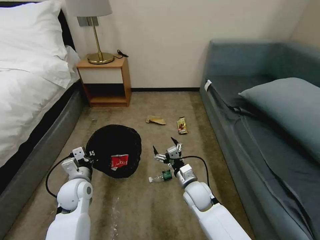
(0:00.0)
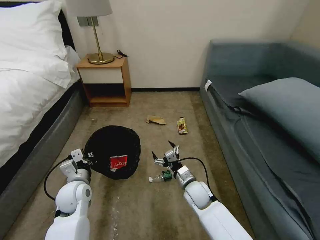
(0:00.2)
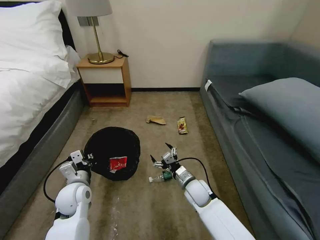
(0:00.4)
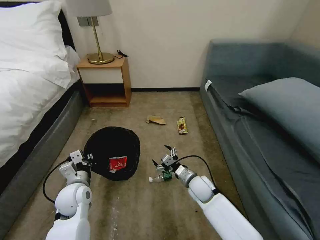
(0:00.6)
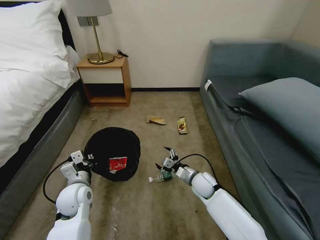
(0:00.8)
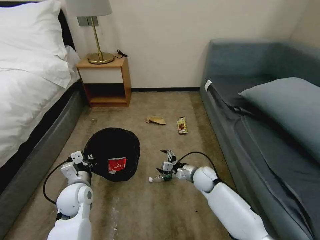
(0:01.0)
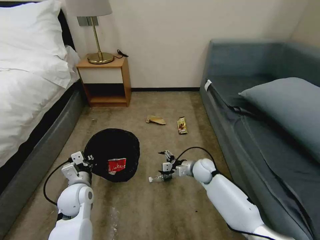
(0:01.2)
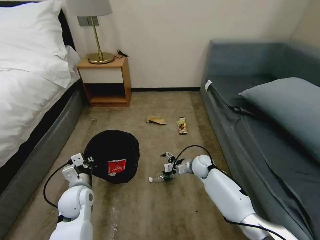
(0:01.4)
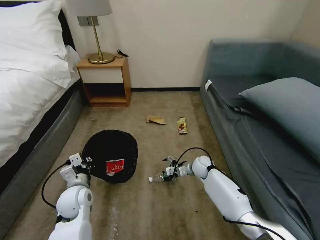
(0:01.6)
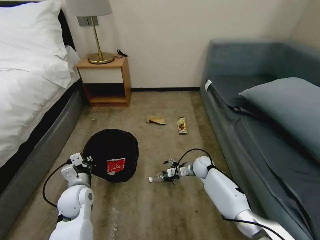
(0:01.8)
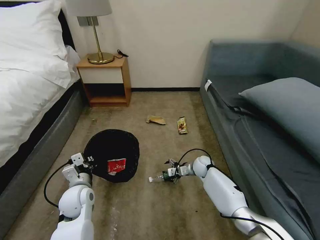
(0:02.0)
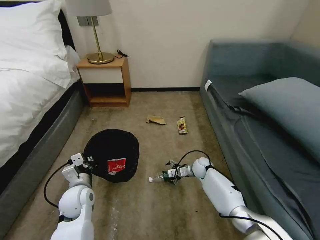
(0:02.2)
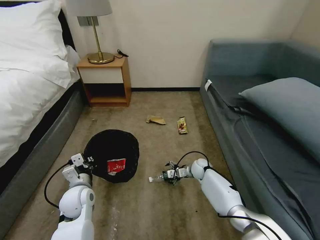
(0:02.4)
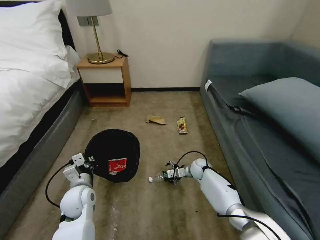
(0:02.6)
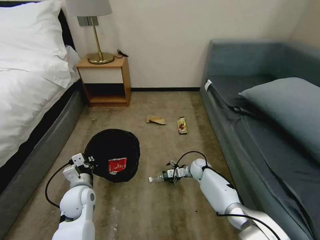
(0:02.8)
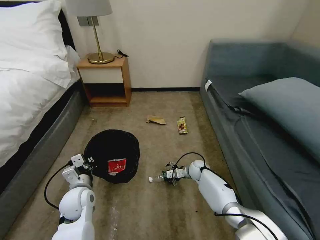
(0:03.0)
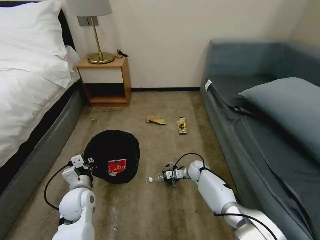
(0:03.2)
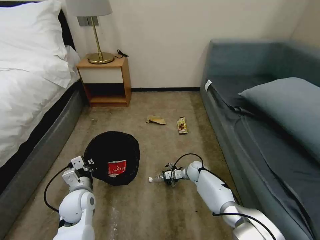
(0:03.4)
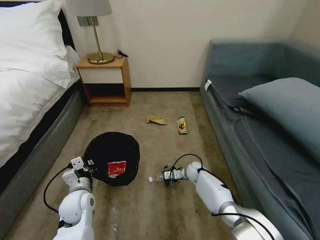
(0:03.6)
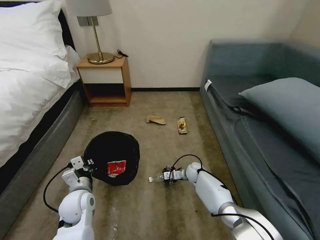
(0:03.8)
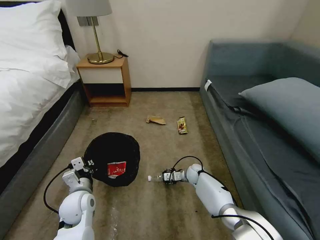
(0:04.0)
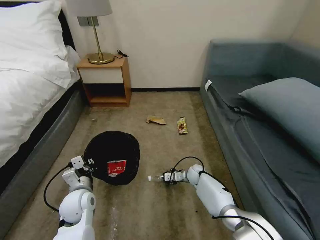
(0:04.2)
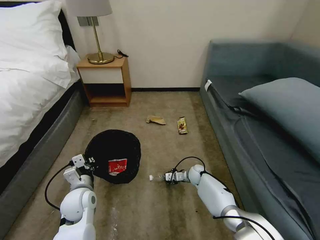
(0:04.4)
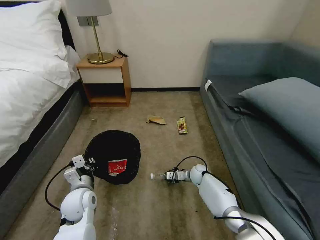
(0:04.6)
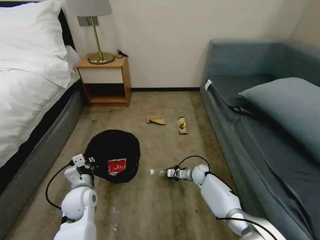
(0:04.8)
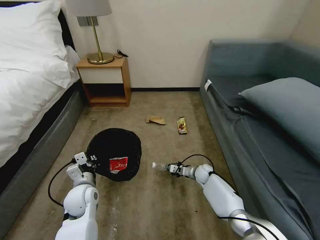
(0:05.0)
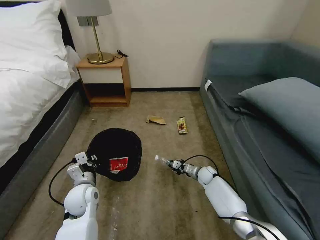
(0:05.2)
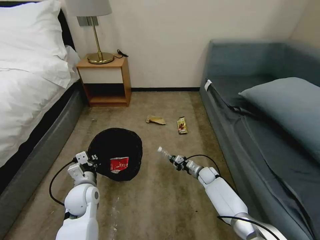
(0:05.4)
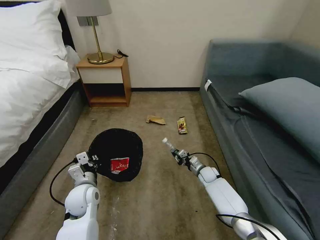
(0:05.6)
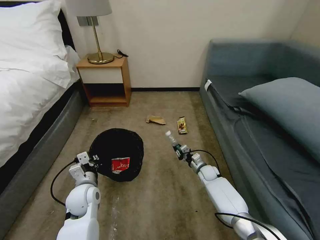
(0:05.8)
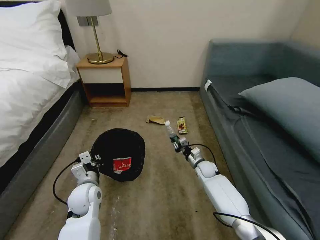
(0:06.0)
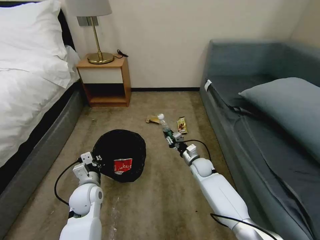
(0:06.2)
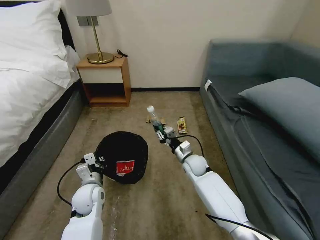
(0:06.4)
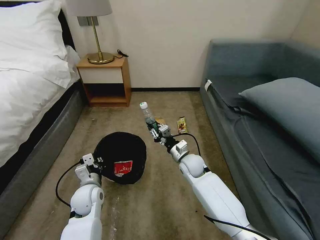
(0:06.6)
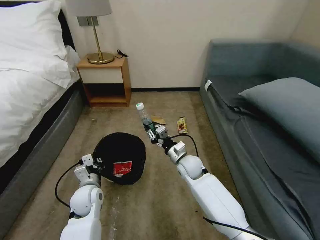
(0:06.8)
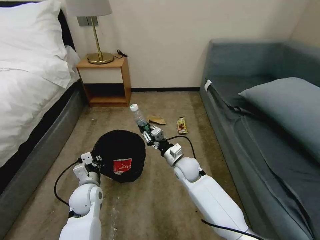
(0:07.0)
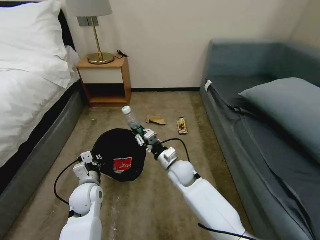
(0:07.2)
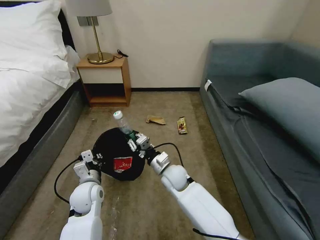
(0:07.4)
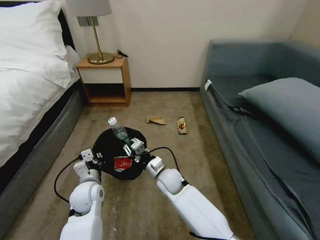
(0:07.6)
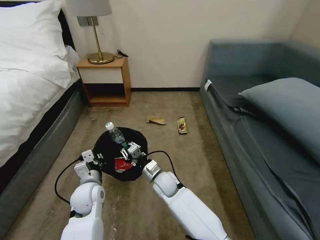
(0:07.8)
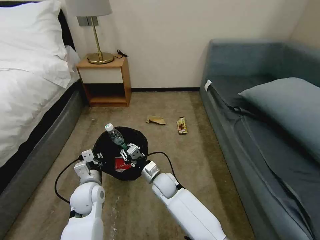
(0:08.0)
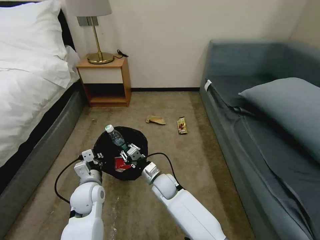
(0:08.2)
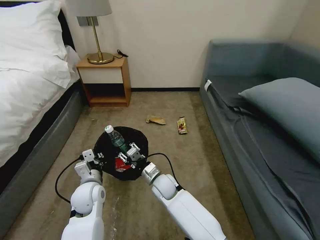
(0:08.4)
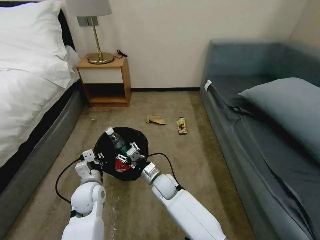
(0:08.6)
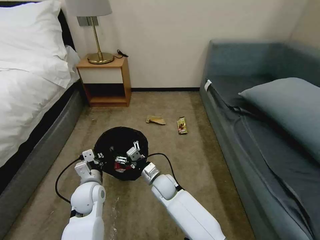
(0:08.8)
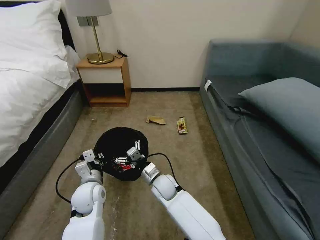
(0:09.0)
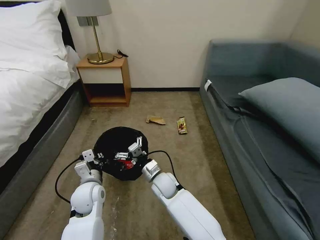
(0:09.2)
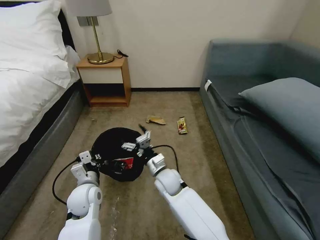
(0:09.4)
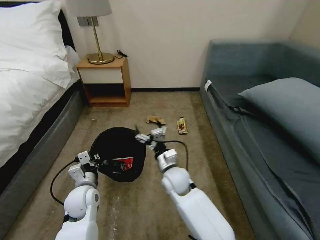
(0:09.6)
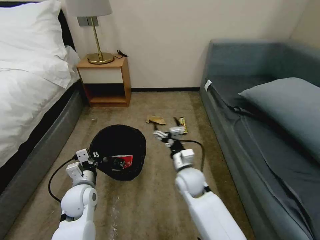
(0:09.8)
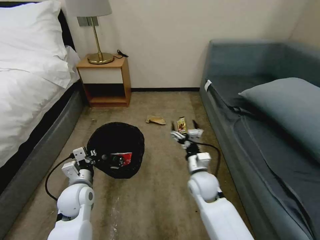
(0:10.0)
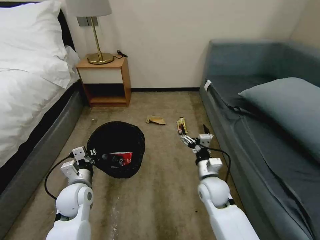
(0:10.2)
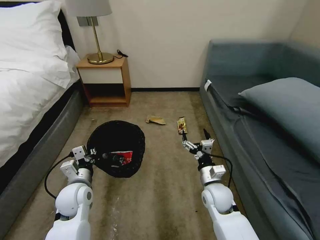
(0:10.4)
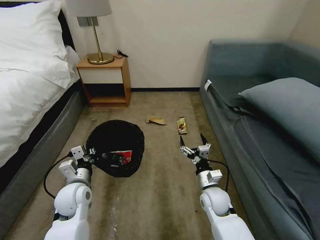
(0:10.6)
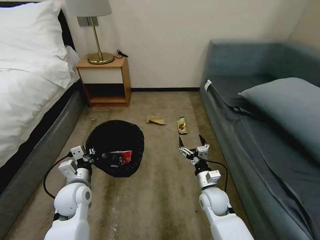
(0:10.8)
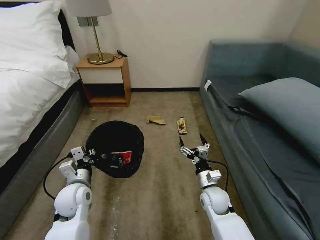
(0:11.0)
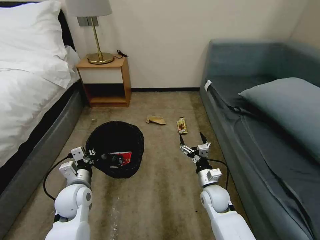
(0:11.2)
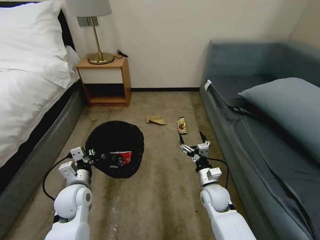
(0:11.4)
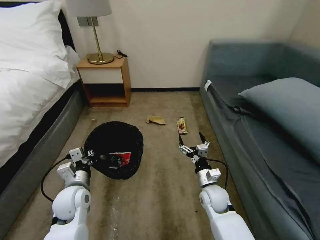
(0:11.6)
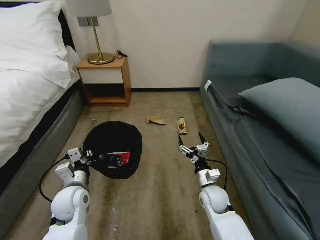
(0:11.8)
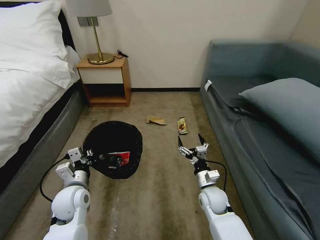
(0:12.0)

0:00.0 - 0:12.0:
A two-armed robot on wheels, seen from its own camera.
Task of the whole recording: Pick up the trash bin, then pick up the garbage on the floor and place it into the trash bin.
0:00.0 - 0:01.6: The right gripper is displaced forward and to the right by some 15 cm.
0:01.6 - 0:03.0: The right gripper travels downward by about 5 cm.
0:03.0 - 0:04.4: The right gripper closes its fingers.
0:04.4 - 0:06.0: The right gripper shifts by about 5 cm.
0:06.0 - 0:07.6: The right gripper moves to the left, backward and upward, about 25 cm.
0:07.6 - 0:09.0: The right gripper opens its fingers.
0:09.0 - 0:10.4: The right gripper heads to the right, covering about 20 cm.
0:10.4 - 0:12.0: The grippers move only a little.

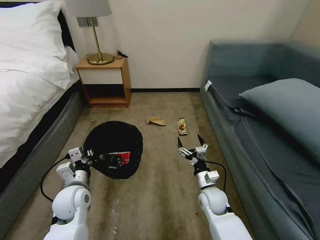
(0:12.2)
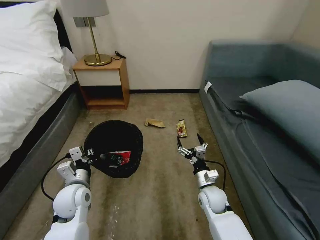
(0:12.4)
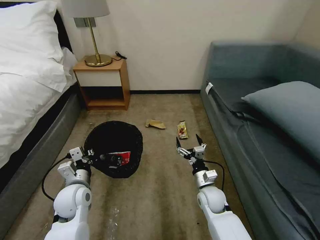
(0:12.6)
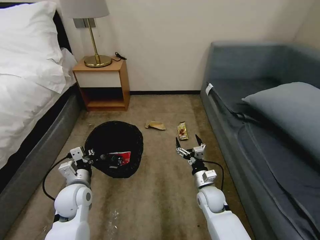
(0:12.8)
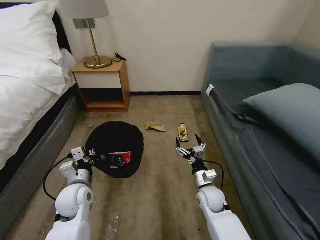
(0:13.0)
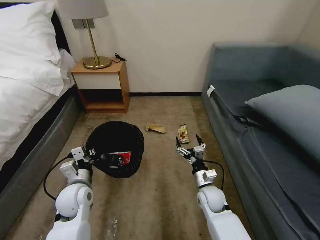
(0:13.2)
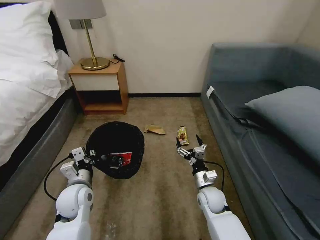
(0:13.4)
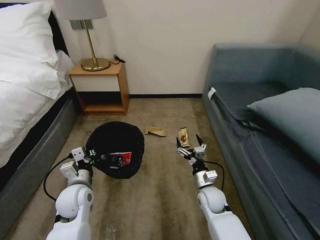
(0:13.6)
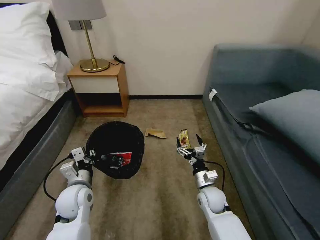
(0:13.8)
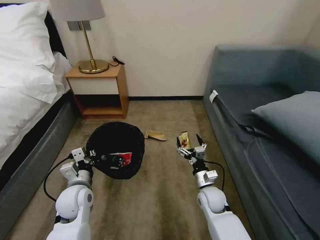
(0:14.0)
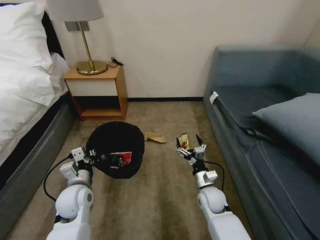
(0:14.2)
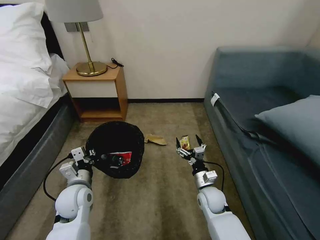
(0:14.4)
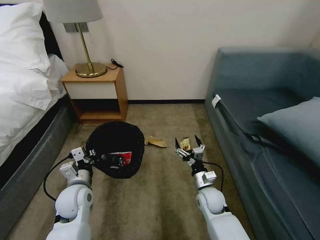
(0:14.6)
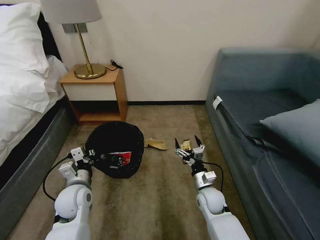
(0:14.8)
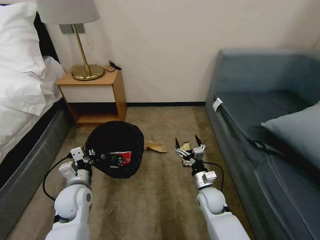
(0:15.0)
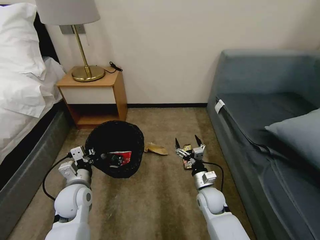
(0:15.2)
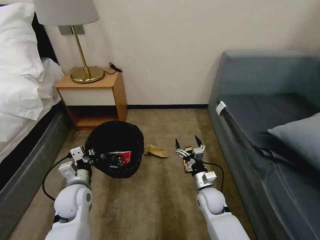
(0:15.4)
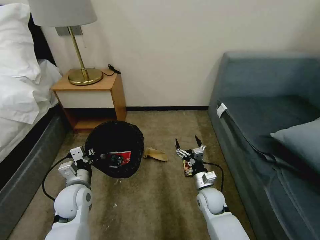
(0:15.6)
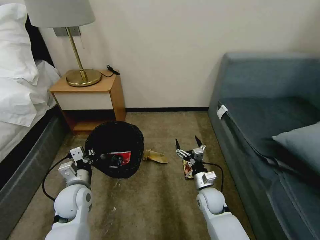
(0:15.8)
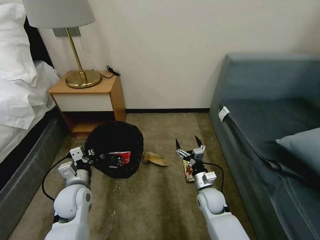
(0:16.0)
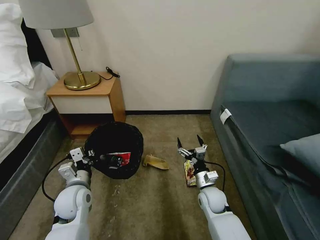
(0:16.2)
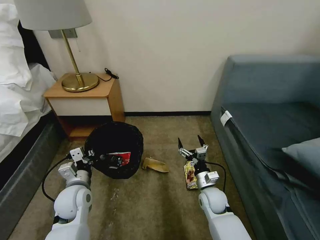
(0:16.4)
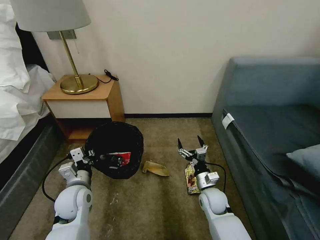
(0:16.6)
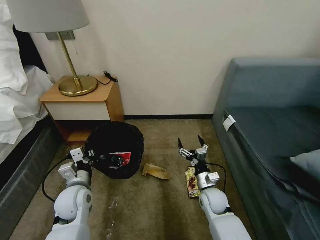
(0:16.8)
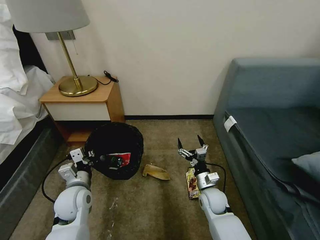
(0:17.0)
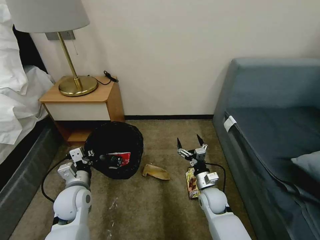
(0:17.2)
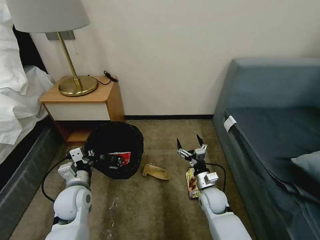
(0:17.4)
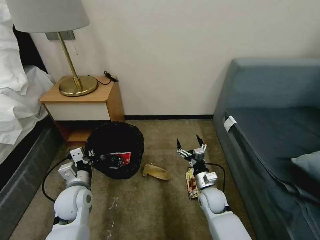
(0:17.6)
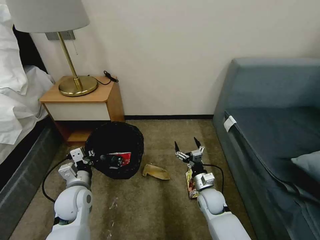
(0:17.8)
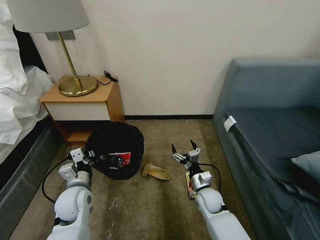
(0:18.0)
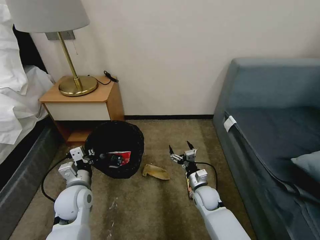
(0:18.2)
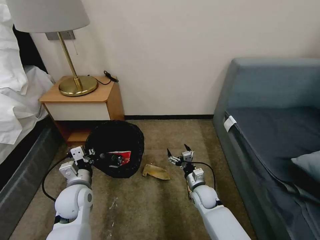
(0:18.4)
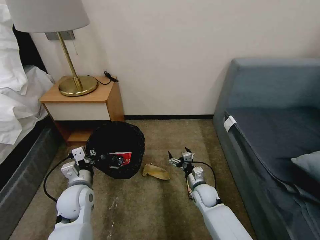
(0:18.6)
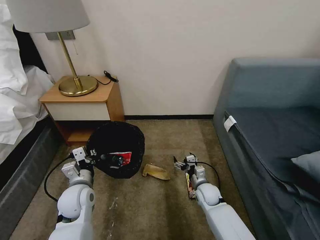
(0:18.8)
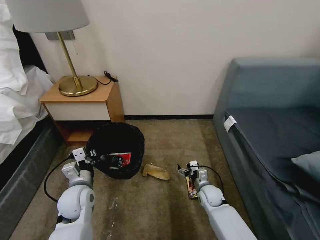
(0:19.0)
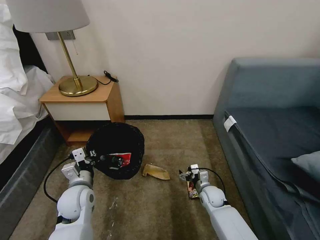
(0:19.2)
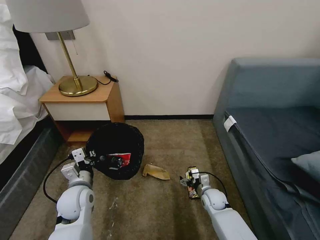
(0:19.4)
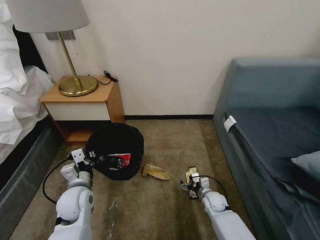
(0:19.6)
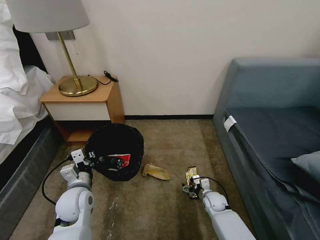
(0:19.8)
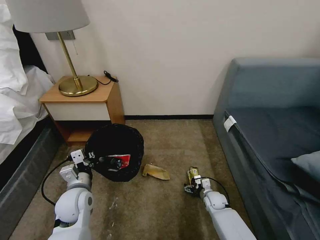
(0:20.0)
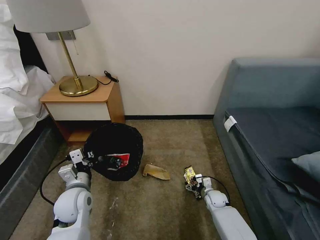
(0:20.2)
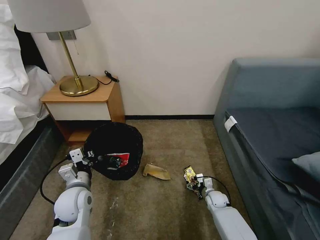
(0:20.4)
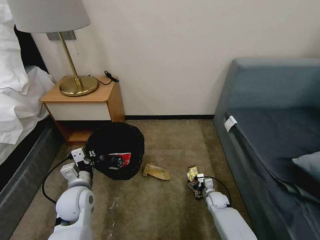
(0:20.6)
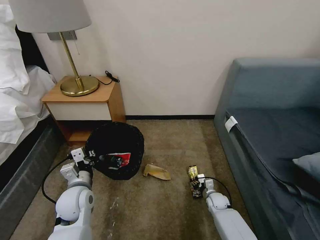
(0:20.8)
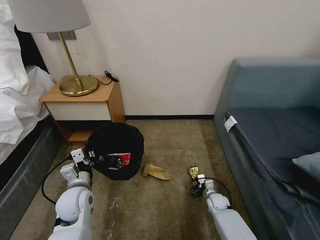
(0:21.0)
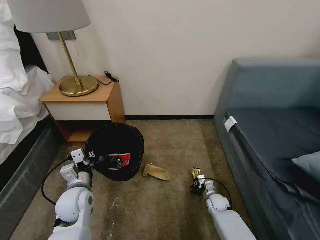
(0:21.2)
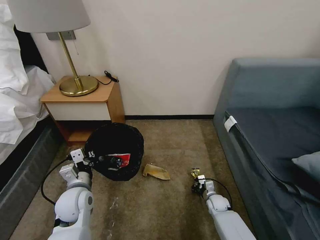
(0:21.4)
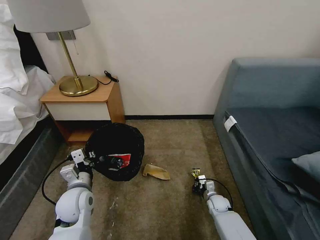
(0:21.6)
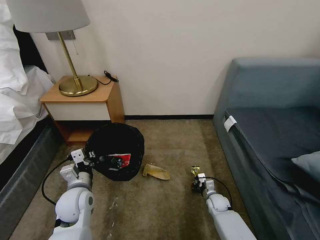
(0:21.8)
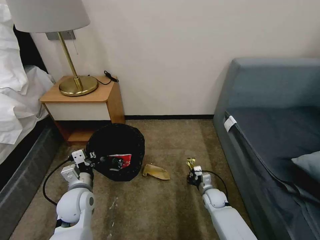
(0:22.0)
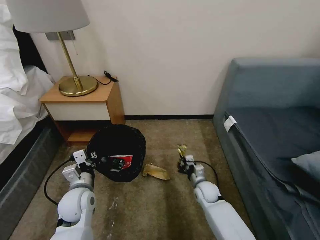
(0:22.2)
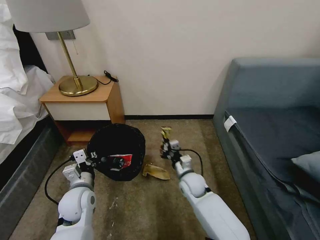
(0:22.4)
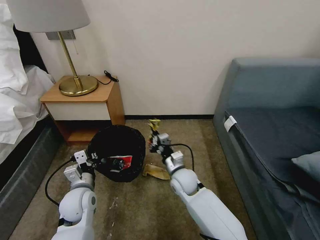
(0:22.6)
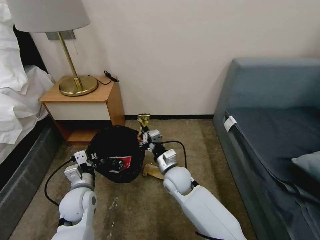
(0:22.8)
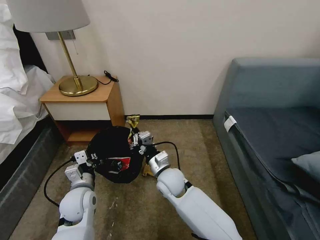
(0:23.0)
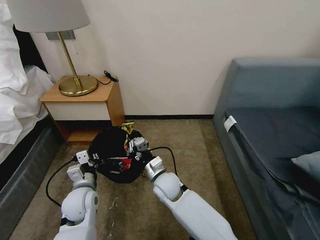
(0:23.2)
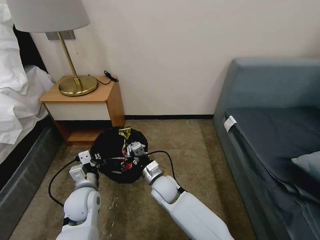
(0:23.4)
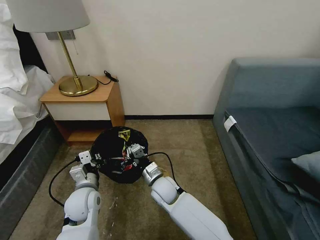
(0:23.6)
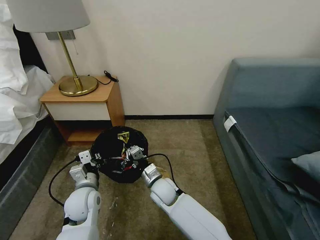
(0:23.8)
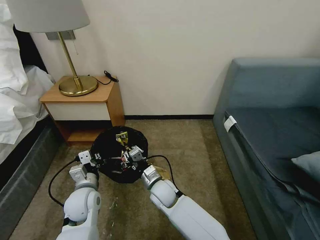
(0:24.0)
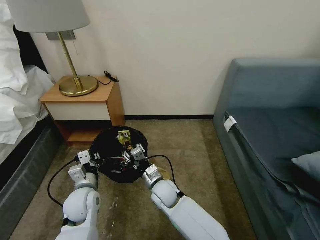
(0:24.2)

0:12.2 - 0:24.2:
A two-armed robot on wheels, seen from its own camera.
Task of the whole recording: Pick up the trash bin, then pick up the garbage on the floor and place it into the trash bin.
0:12.2 - 0:13.8: Both grippers stay put.
0:16.6 - 0:18.2: The grippers stay close to where they were, moving slightly.
0:18.2 - 0:19.8: The right gripper shifts about 10 cm downward and to the right.
0:19.8 - 0:21.2: The right gripper closes up.
0:21.2 - 0:22.6: The right gripper heads upward and to the left, covering some 25 cm.
0:22.6 - 0:24.2: The right gripper goes some 10 cm to the left, and opens its fingers.
